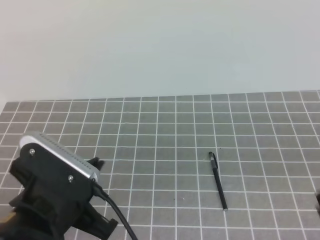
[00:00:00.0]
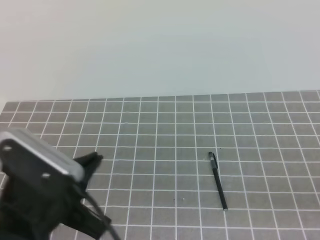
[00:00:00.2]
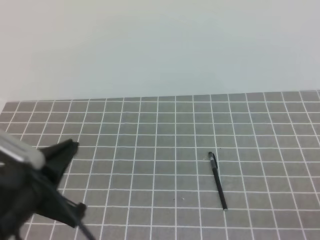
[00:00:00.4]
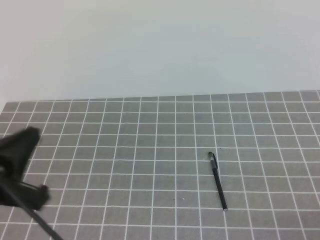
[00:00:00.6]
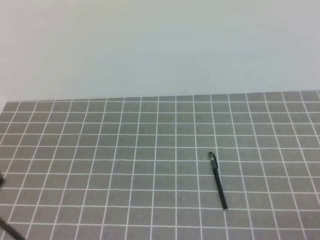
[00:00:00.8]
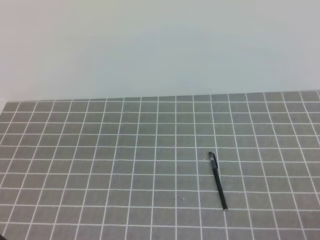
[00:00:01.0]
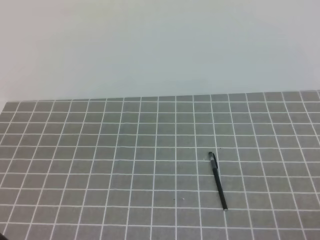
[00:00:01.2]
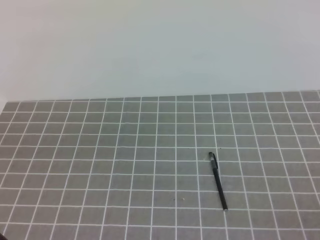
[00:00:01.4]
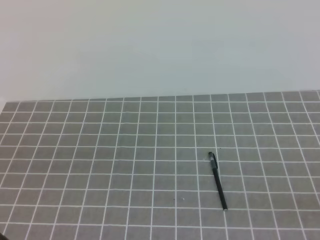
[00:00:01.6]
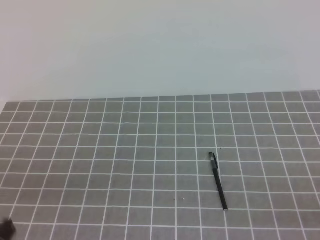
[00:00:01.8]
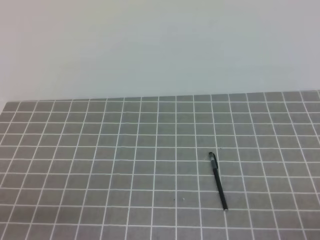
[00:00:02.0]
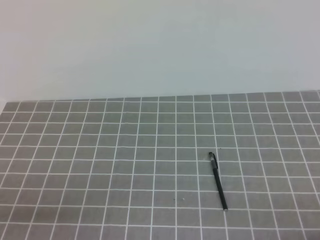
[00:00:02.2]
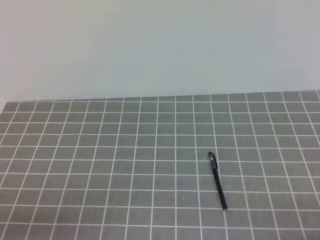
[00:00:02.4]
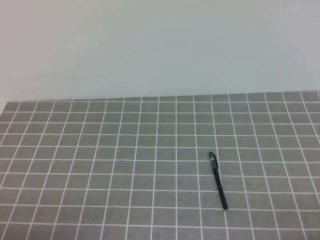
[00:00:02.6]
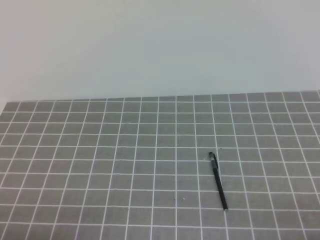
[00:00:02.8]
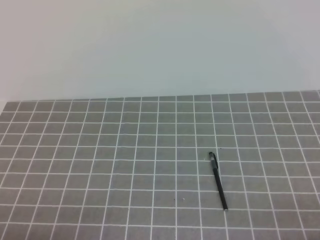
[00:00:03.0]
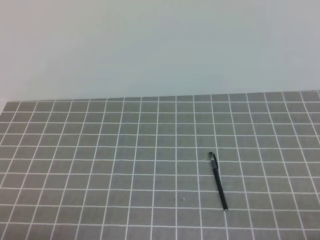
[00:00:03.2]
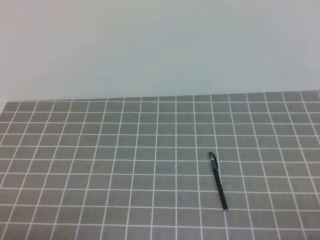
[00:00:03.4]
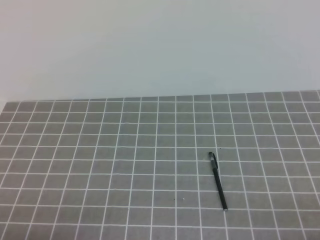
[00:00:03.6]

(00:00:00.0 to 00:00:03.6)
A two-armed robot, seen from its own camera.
Task of the whole recording: on the grey tablecloth, hold the pen cap in one hand and the pen in the other, then cover the pen cap.
Step, 00:00:00.0 - 00:00:03.6: Put the cap on the pen.
00:00:00.0 - 00:00:01.8: The right gripper is displaced backward, to the right and downward by some 15 cm. Meanwhile the left gripper moves to the left, approximately 10 cm.
